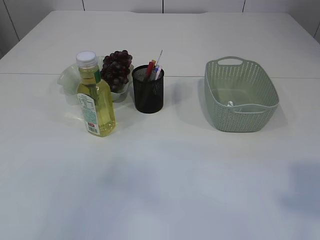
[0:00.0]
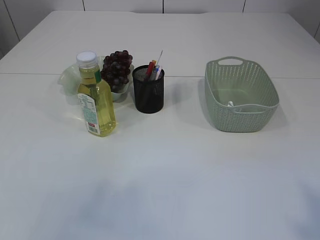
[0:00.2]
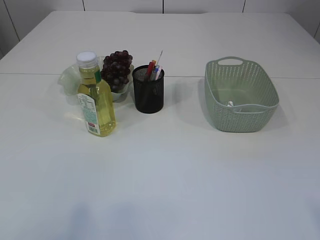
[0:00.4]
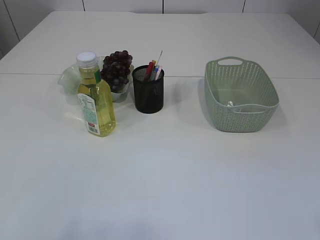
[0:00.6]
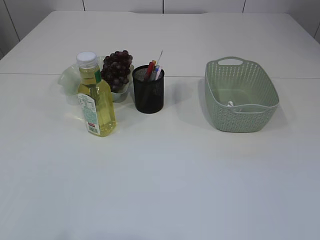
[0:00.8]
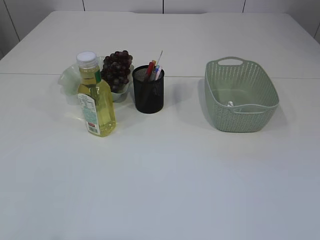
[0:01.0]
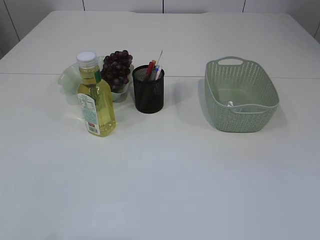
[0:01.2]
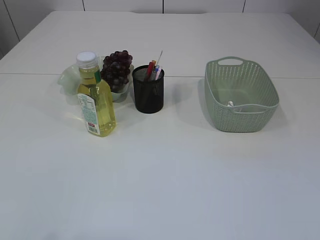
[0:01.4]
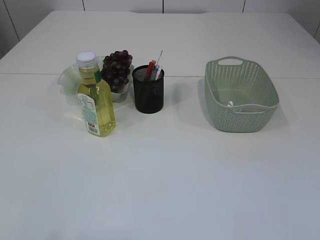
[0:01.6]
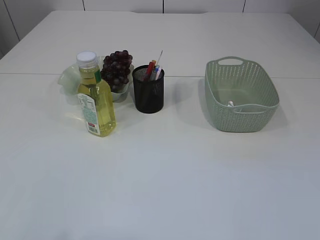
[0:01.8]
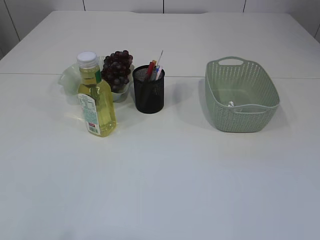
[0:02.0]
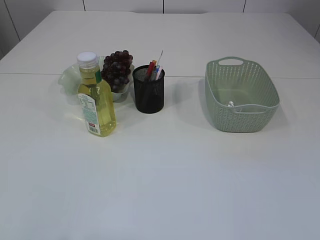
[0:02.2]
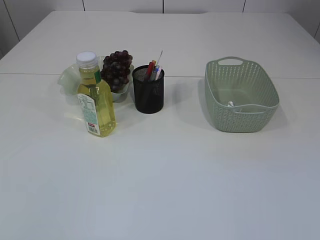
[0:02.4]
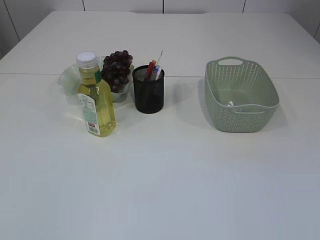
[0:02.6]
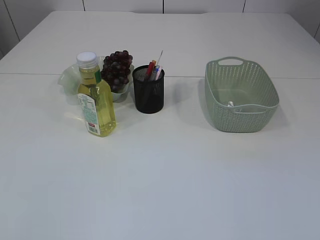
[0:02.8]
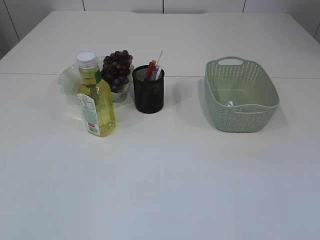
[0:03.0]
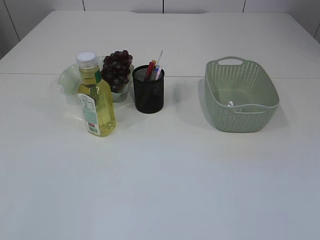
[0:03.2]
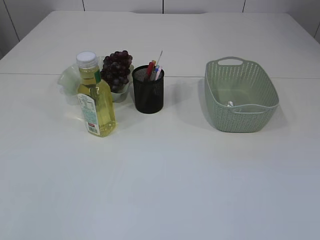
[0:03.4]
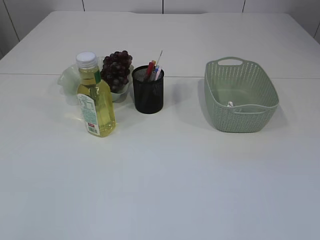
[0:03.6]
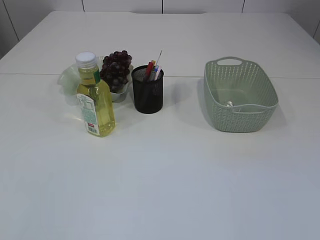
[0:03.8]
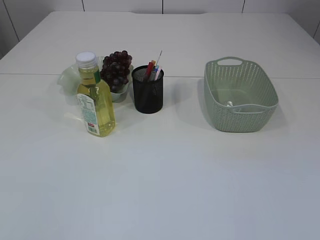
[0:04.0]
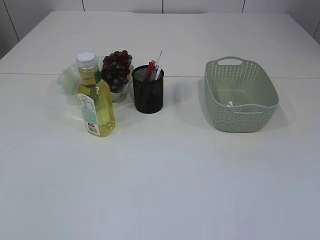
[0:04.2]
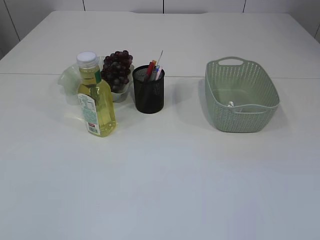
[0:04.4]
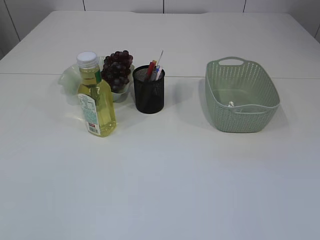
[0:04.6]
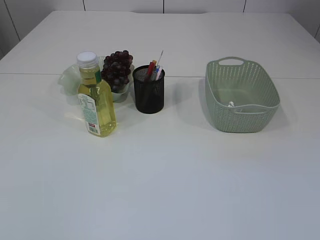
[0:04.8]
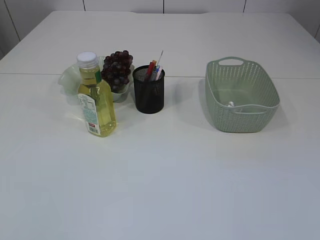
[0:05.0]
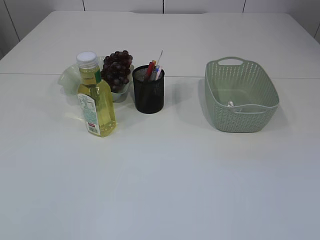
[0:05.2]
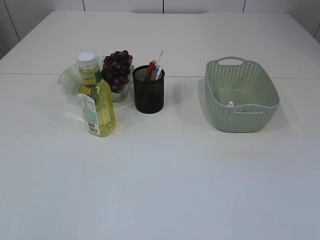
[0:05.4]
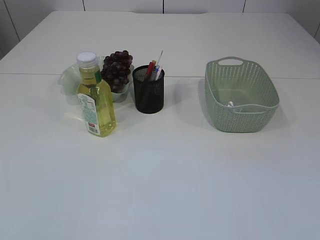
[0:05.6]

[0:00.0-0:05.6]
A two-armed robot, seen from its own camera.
0:00.0 to 0:01.4: The left gripper is displaced backward and downward by about 15 cm. Meanwhile the right gripper moves downward and backward, roughly 20 cm.
